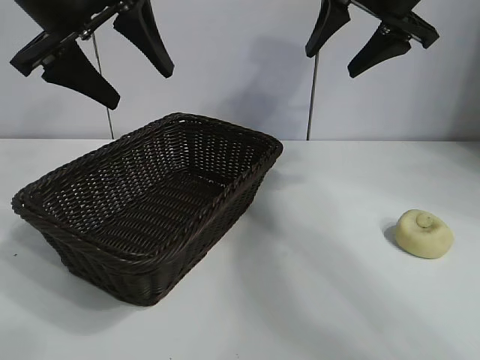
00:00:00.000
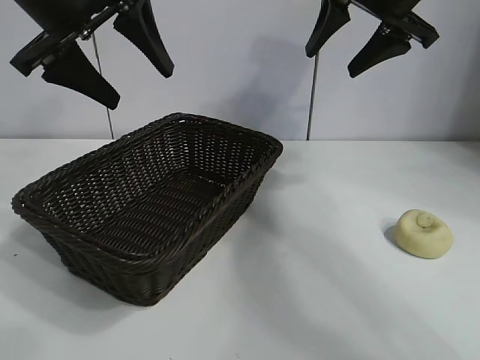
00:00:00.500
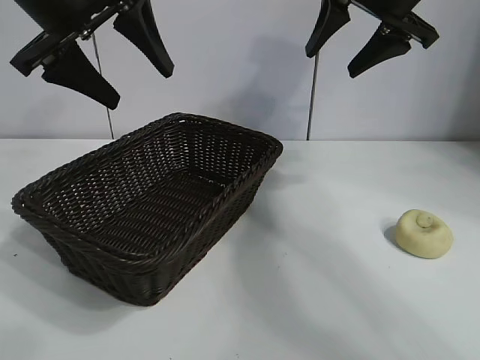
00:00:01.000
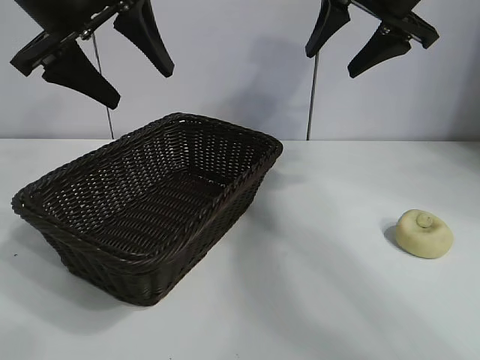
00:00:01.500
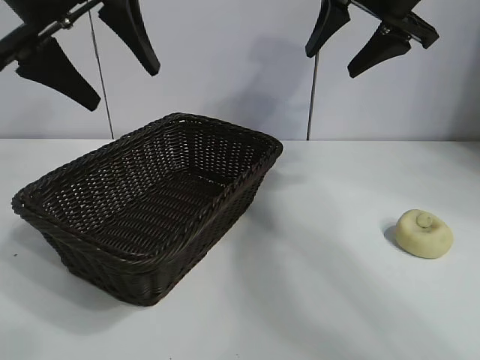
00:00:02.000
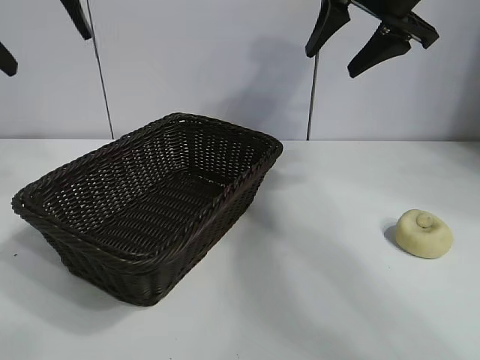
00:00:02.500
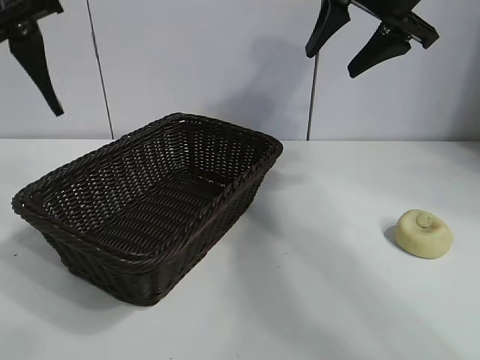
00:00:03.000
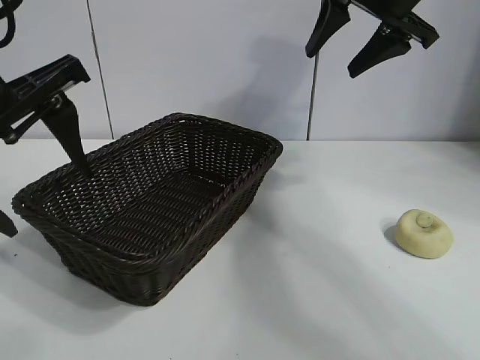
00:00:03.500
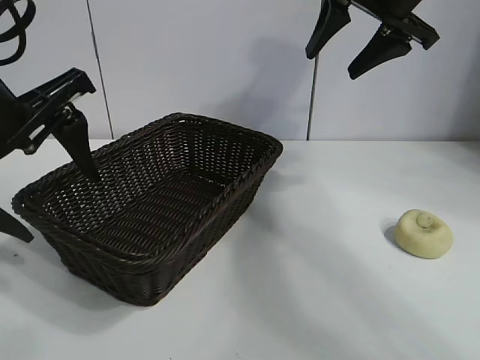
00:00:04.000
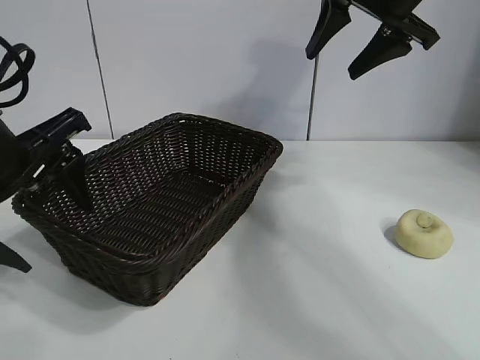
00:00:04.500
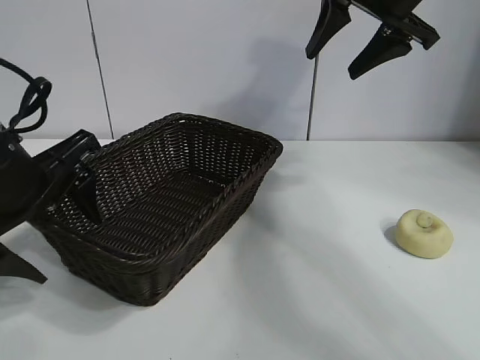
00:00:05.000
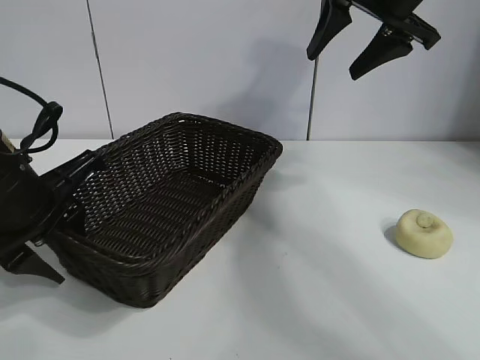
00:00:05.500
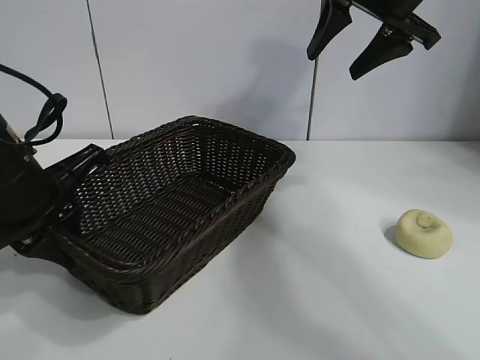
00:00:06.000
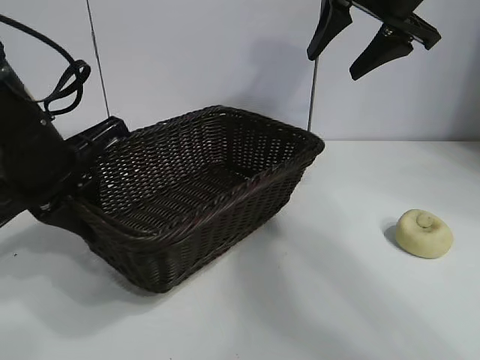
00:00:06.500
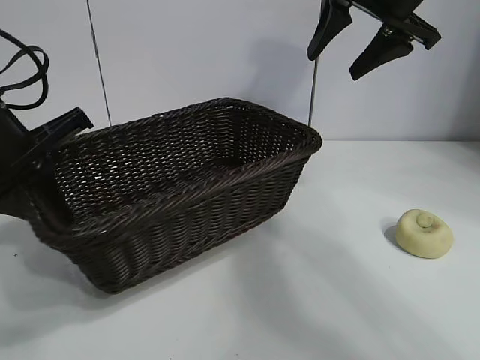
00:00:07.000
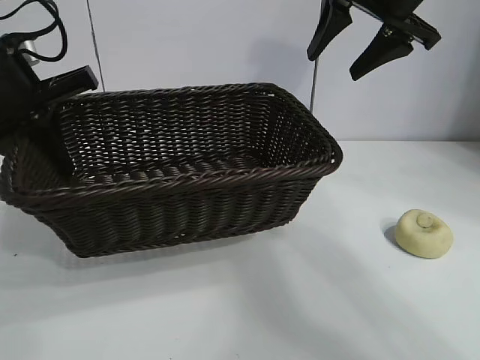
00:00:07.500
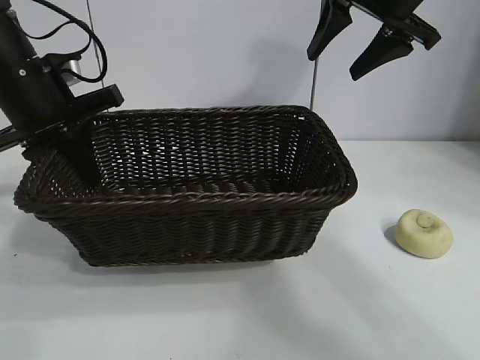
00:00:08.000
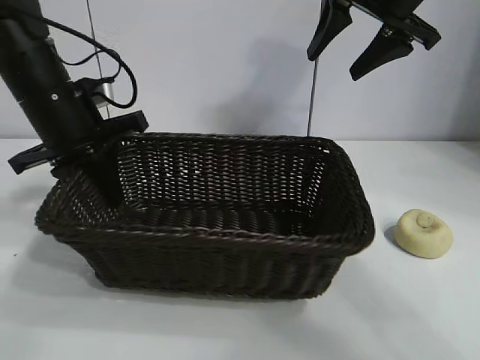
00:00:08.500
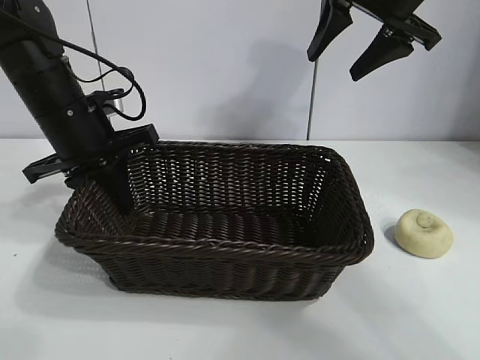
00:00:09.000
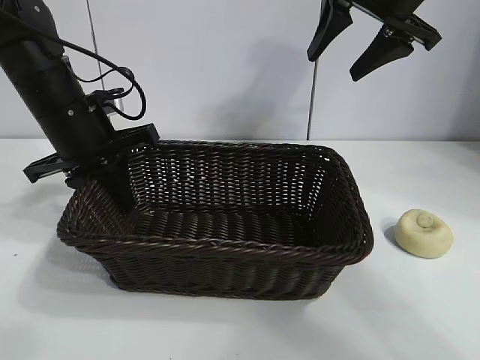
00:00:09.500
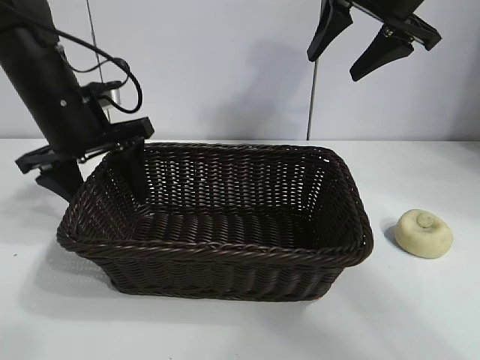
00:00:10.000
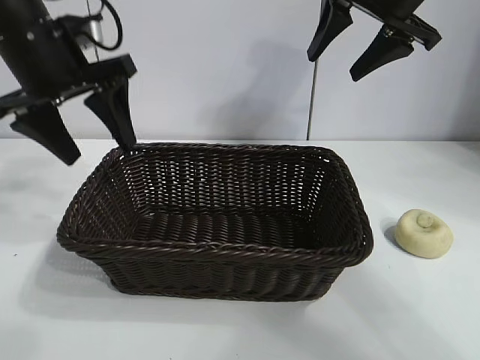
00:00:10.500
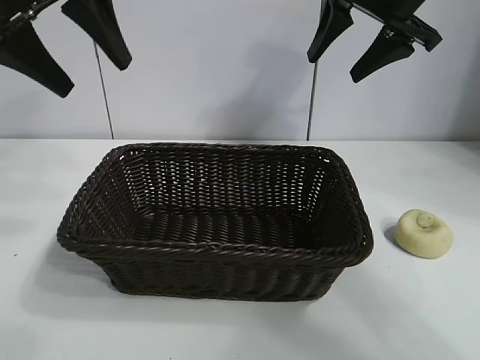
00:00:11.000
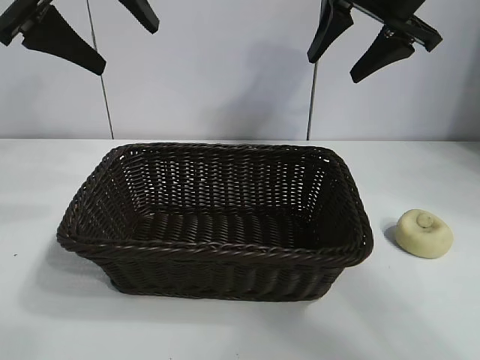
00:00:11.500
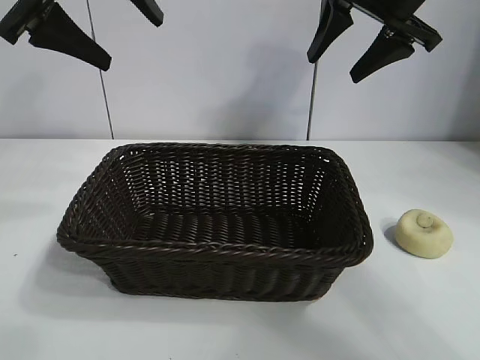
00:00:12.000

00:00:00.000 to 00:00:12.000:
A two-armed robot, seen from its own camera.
Task of the whole recording: pick up the egg yolk pastry and put it into the basket.
Step, 00:00:02.000 to 00:00:05.500: Grasp the basket with left gripper.
Step, 00:00:06.000 to 00:00:10.000: Place the basket in the center of view with left gripper.

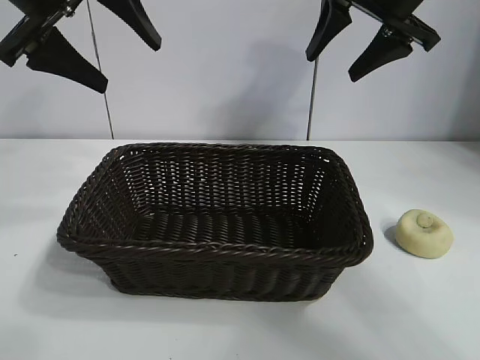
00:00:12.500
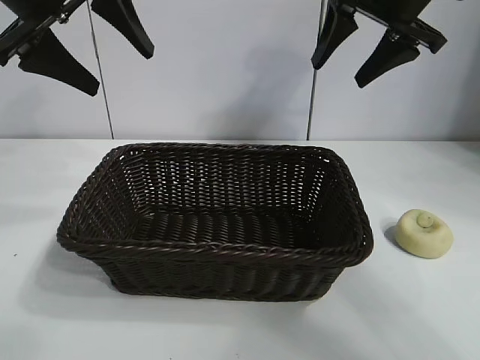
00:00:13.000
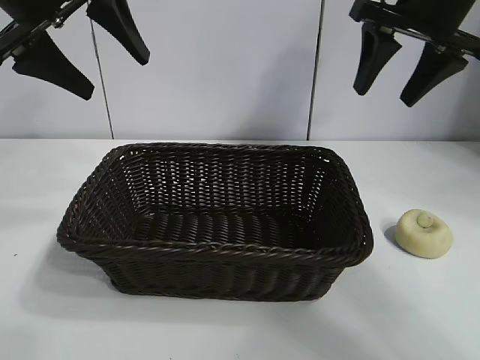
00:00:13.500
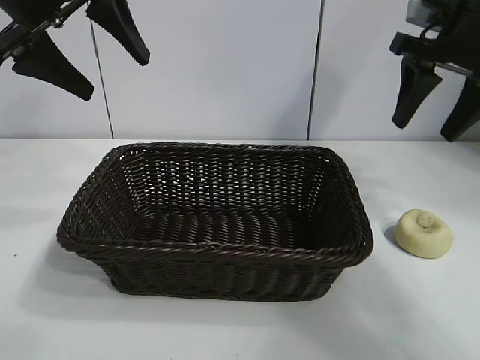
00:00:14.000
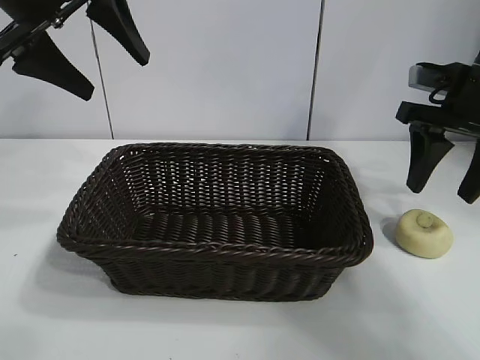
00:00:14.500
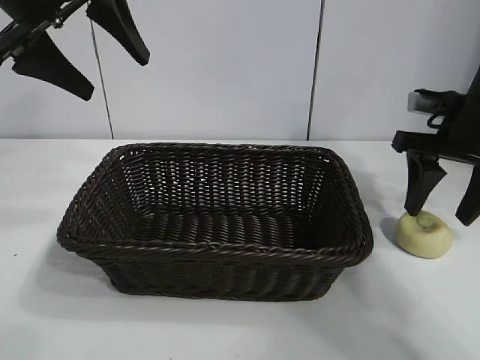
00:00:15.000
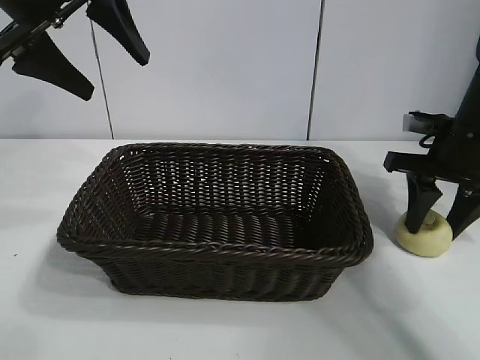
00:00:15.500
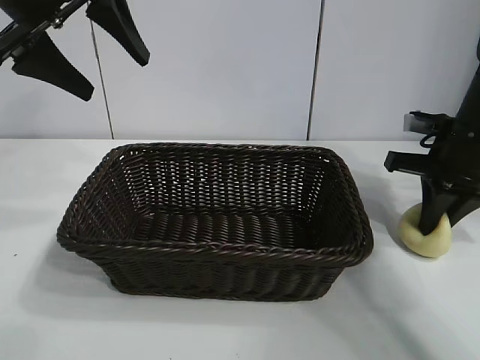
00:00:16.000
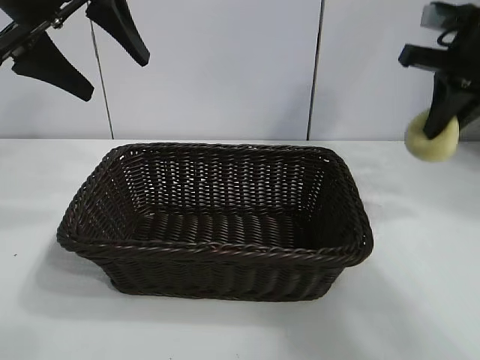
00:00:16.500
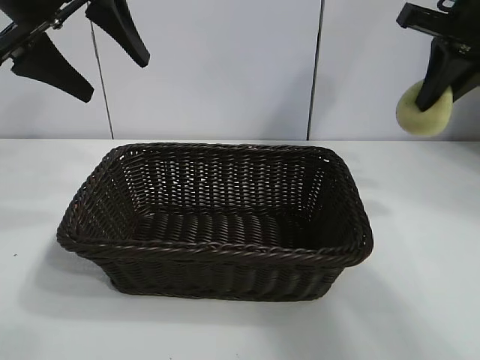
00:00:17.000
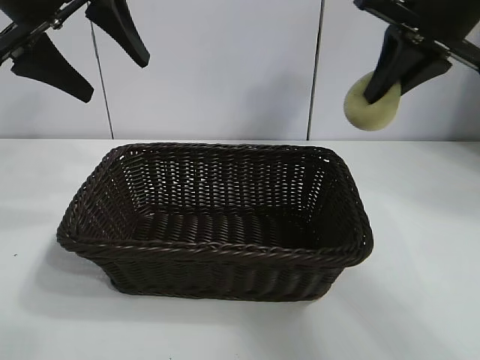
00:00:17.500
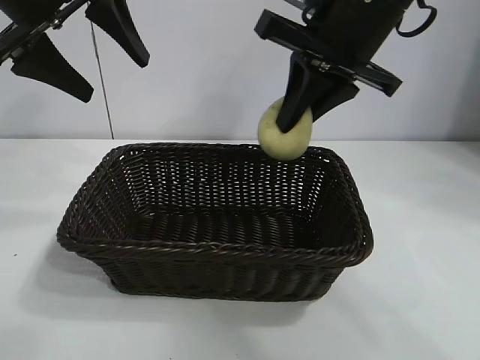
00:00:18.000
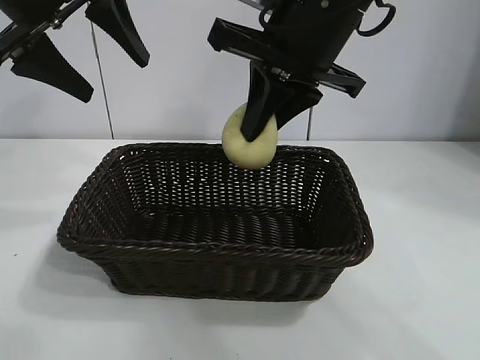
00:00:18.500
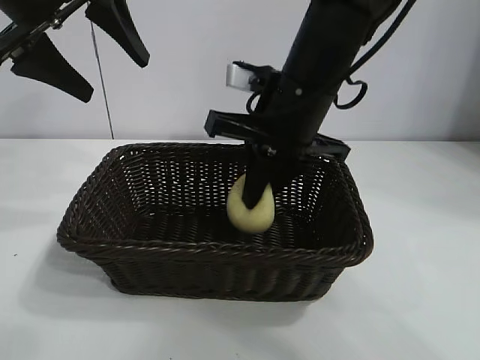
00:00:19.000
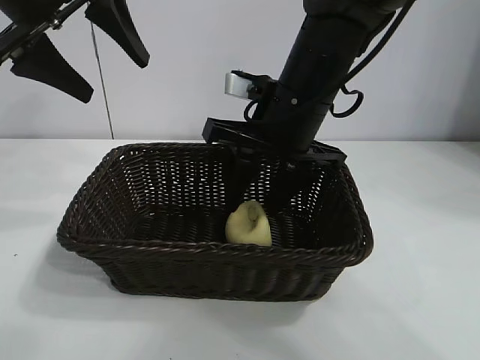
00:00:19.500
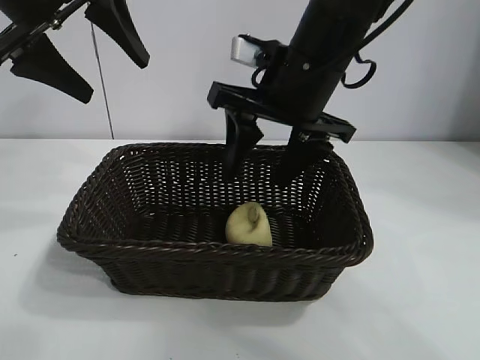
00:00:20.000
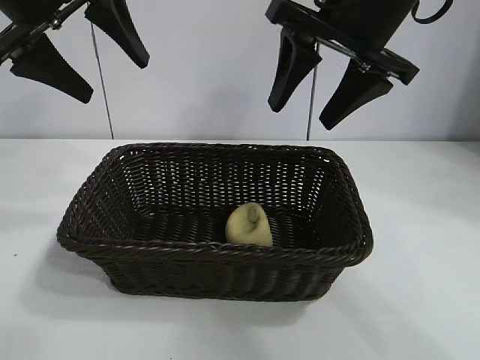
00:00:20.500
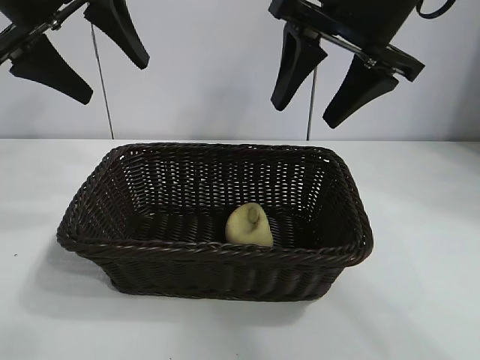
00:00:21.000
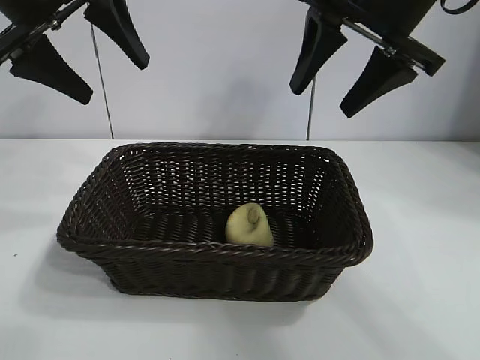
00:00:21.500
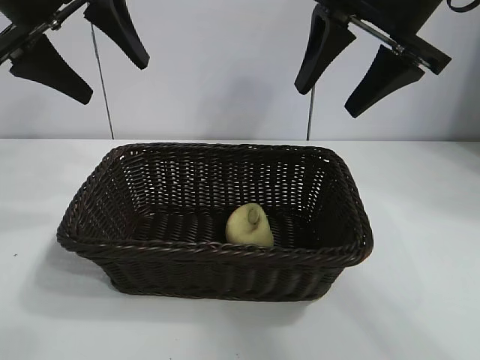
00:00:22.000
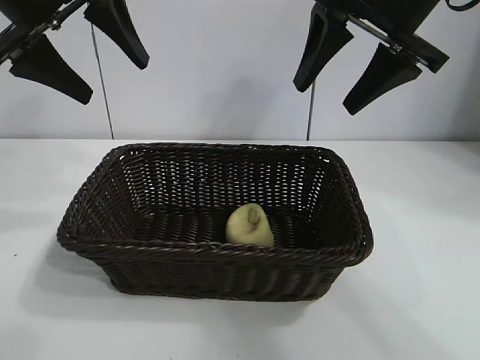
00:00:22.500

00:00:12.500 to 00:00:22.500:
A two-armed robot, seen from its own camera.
Task of the whole recording: pick up the egg yolk pastry and put it into the basket.
Step, 00:00:12.500 to 00:00:15.500: Grasp egg yolk pastry with right gripper.
Step, 00:00:16.000 to 00:00:19.500: Place the egg yolk pastry in the basket with right gripper.
